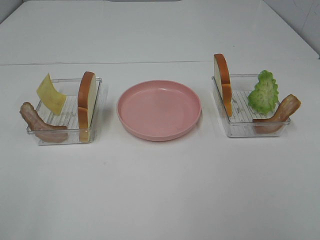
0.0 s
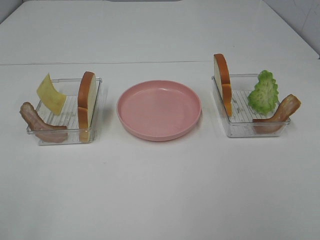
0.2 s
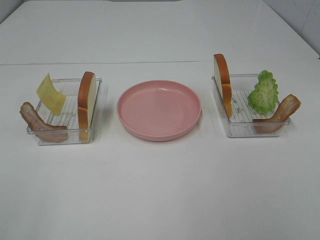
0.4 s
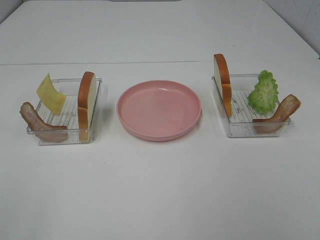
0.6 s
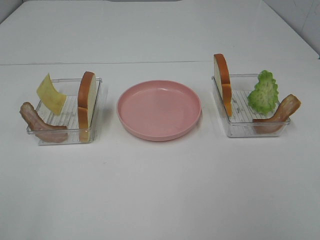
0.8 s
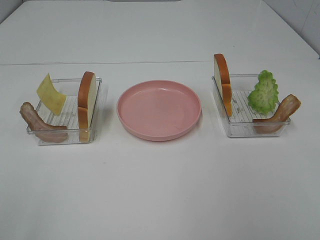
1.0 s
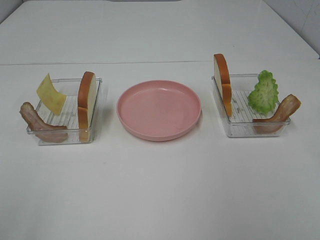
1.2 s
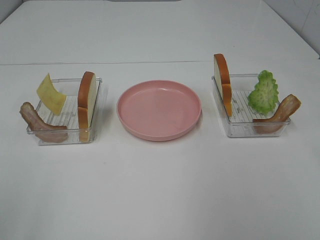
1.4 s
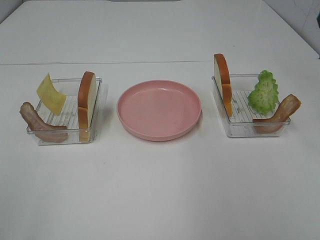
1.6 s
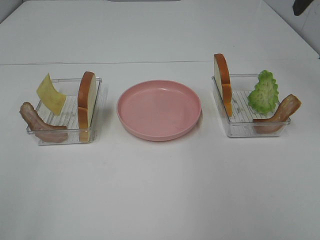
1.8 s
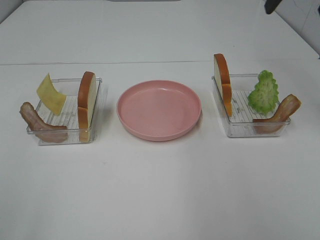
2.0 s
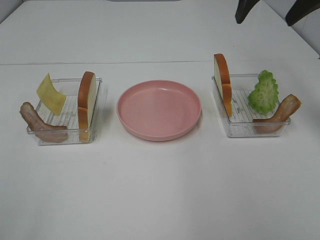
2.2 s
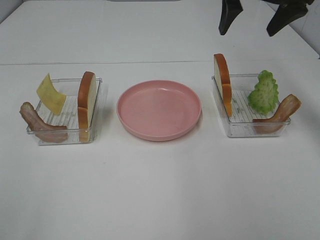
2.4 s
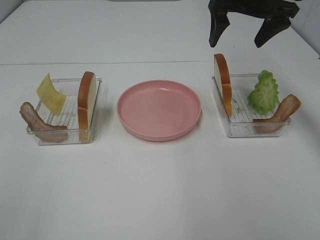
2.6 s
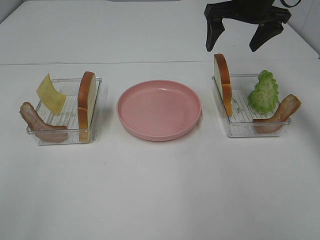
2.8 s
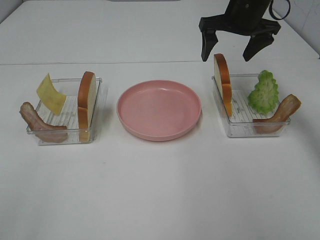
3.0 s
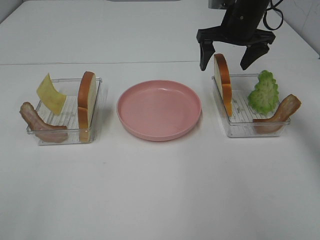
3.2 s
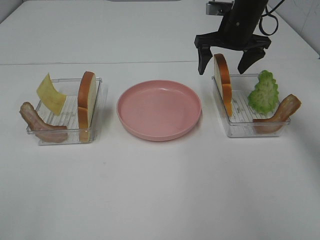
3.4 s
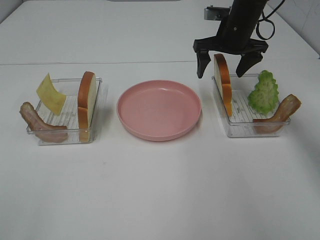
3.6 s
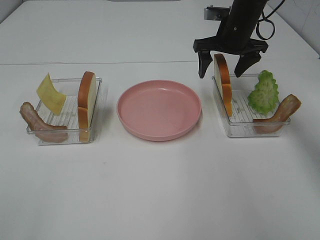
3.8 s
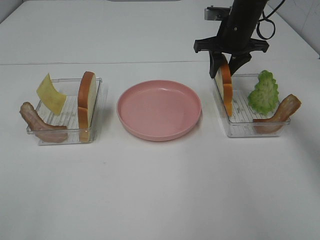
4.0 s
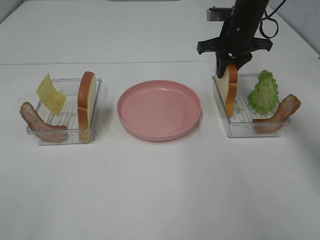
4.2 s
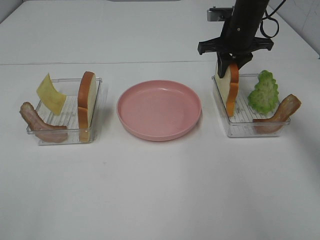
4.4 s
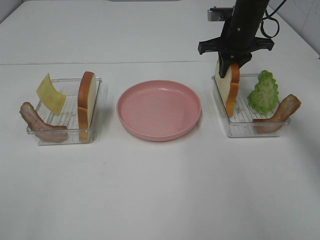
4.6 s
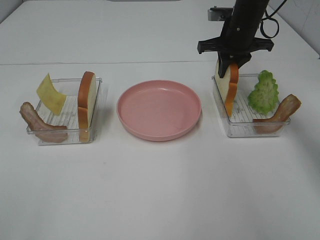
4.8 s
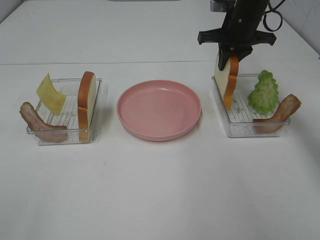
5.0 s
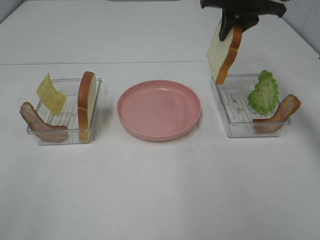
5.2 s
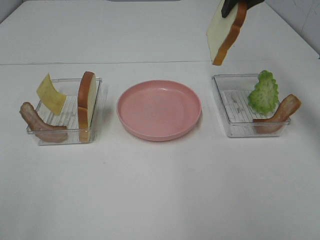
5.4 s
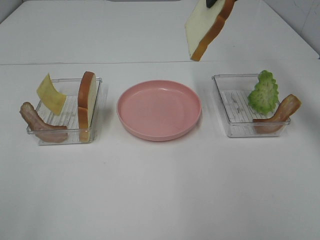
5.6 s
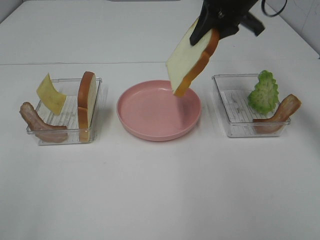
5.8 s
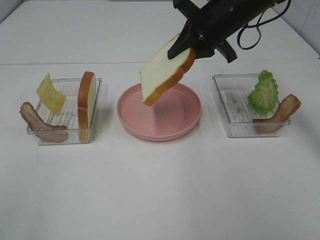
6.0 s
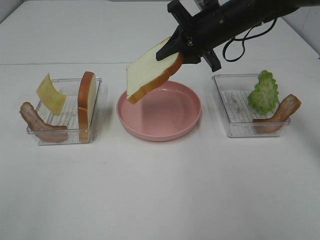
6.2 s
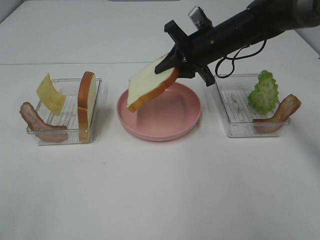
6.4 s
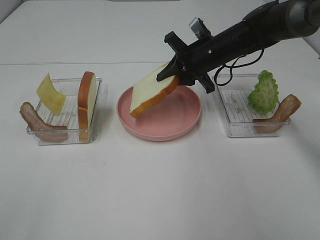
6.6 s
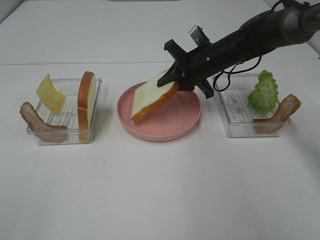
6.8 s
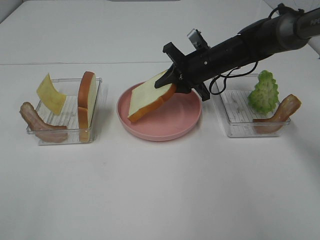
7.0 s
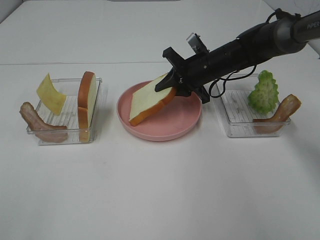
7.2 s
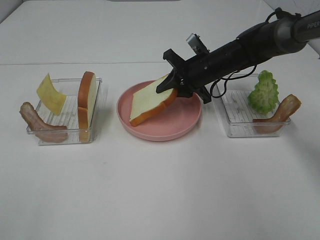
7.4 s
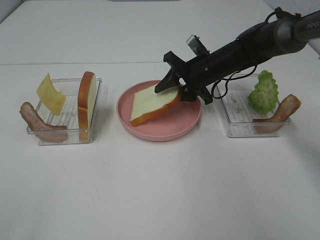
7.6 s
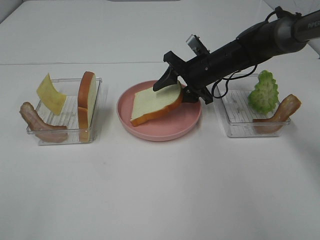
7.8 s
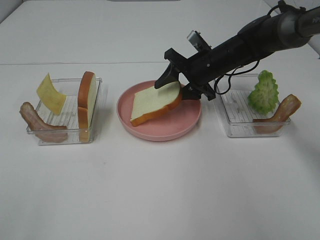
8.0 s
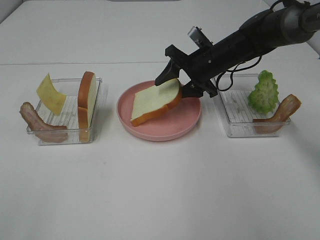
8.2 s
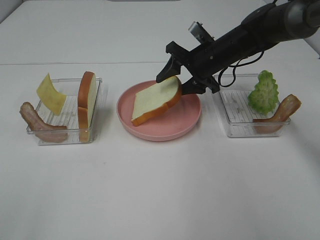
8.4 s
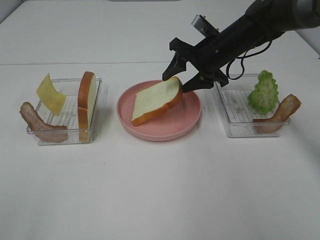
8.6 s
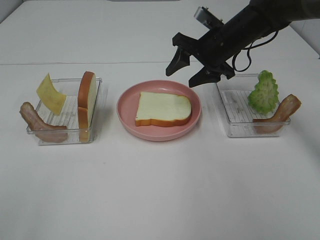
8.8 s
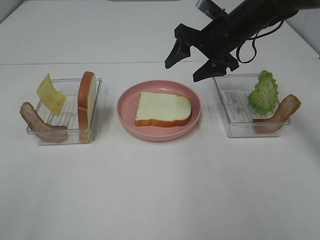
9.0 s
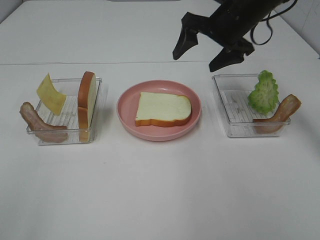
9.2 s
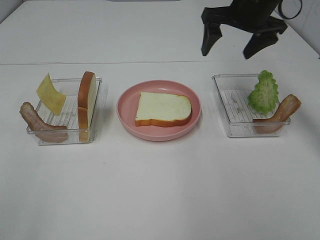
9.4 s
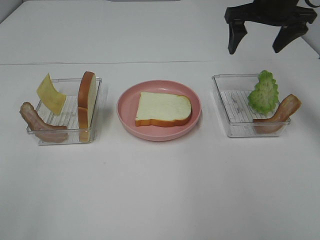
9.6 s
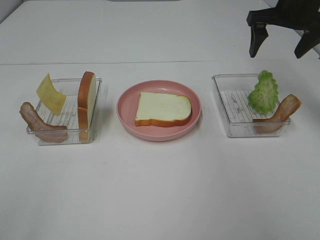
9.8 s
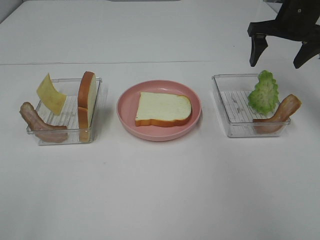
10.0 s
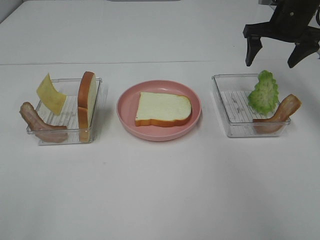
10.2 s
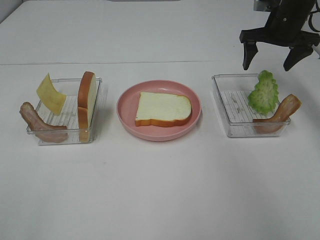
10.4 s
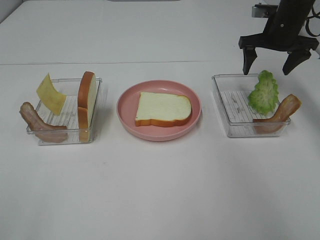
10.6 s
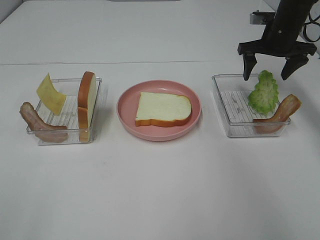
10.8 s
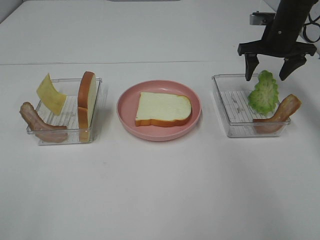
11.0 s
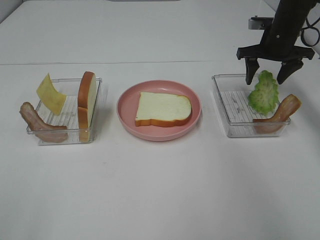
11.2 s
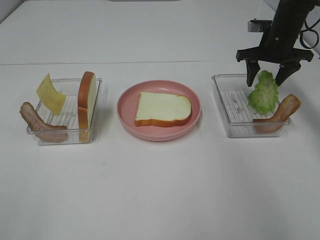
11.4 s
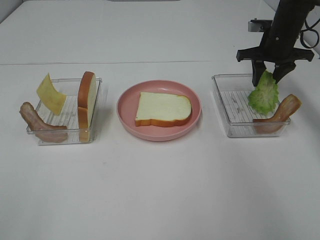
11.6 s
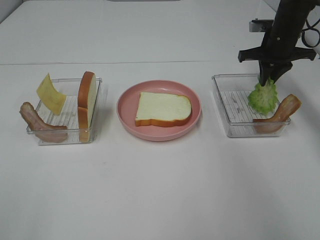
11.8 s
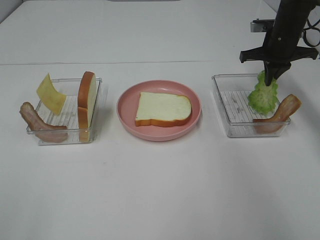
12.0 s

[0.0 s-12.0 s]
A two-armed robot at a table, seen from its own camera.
Task of the whole recording: Make sandwiches.
Step, 0.0 to 4.8 s: Right hand:grab the bread slice.
Step, 5.0 to 8.8 s: Right hand:place the bread slice on the plate.
1.6 to 3.0 s: The right gripper heads forward, downward and to the left, covering about 25 cm.
3.0 to 4.4 s: The right gripper changes place by roughly 5 cm, and closes up.
4.4 to 6.0 s: The right gripper moves backward, some 5 cm, and moves some 15 cm upward and comes back.
6.0 to 7.6 s: The right gripper is displaced downward by some 15 cm.
7.6 to 9.0 s: The right gripper shifts approximately 10 cm upward.
9.0 to 10.4 s: The right gripper moves to the right and forward, roughly 15 cm.
10.4 to 12.0 s: The right gripper closes.

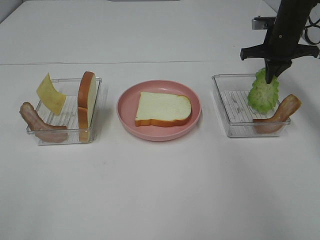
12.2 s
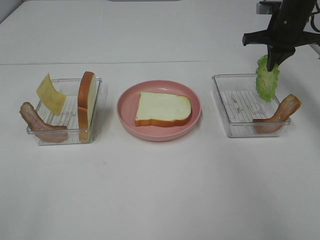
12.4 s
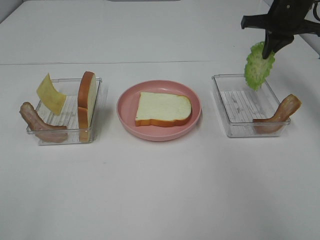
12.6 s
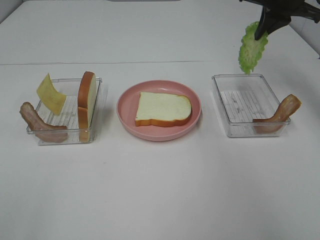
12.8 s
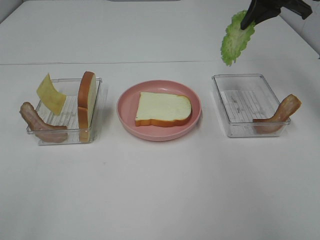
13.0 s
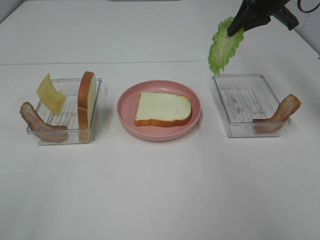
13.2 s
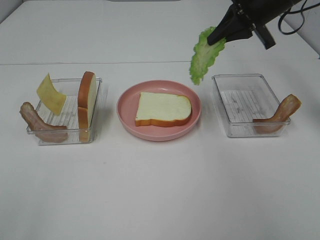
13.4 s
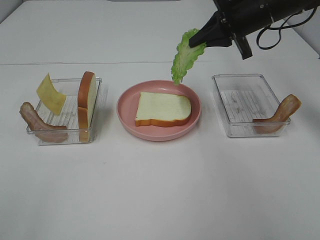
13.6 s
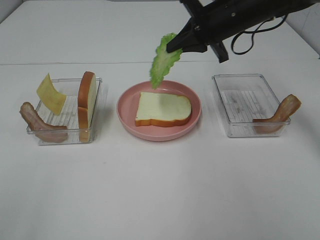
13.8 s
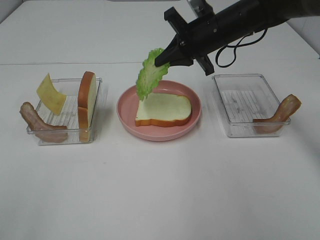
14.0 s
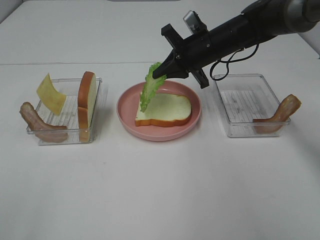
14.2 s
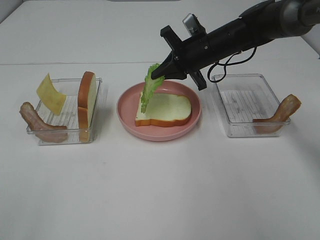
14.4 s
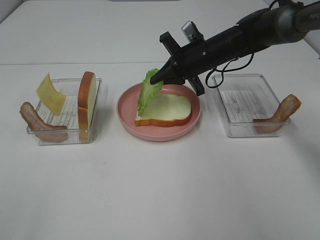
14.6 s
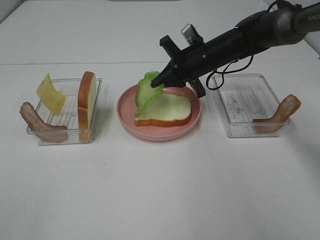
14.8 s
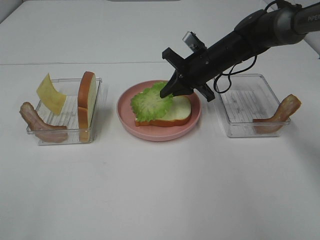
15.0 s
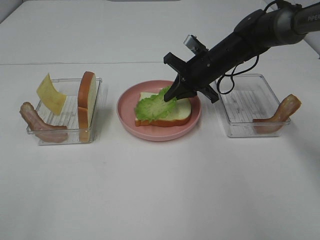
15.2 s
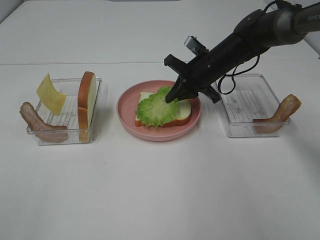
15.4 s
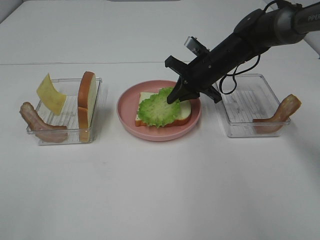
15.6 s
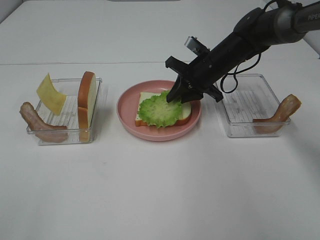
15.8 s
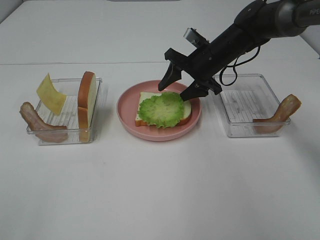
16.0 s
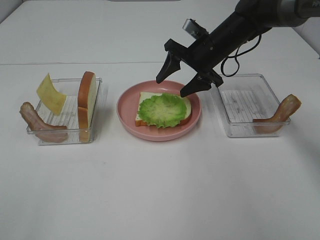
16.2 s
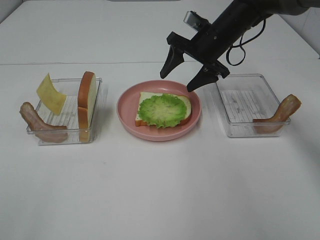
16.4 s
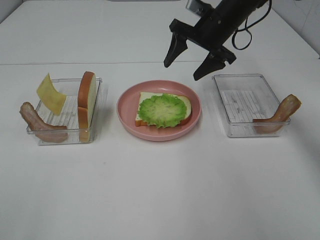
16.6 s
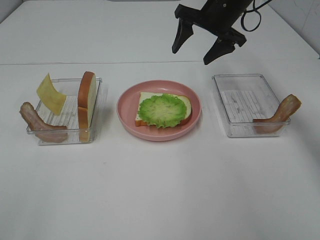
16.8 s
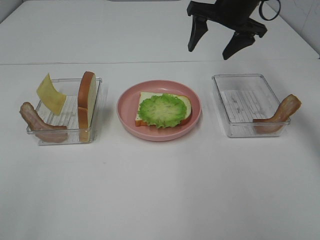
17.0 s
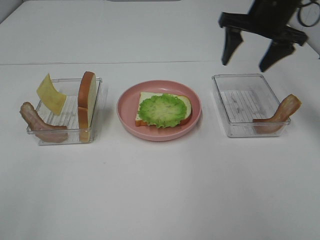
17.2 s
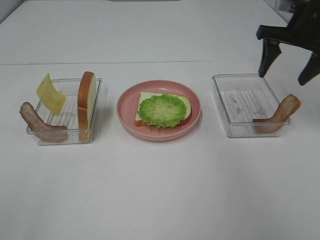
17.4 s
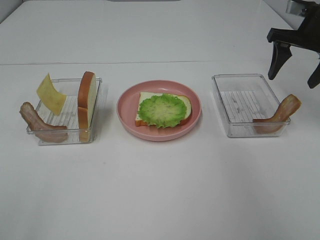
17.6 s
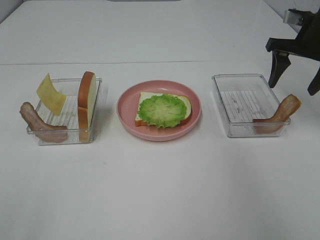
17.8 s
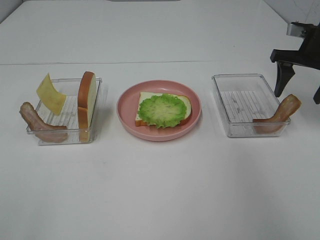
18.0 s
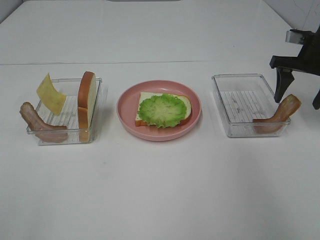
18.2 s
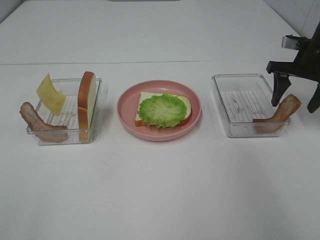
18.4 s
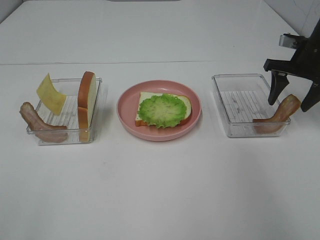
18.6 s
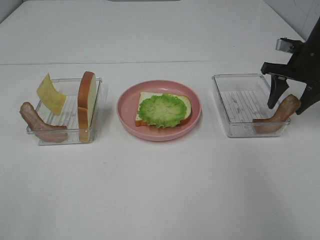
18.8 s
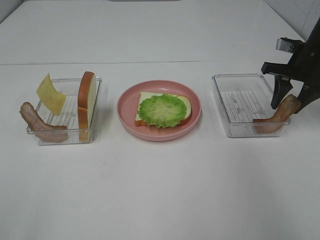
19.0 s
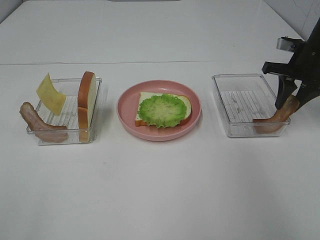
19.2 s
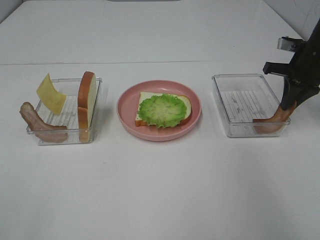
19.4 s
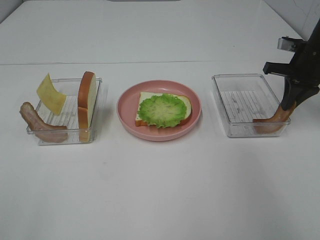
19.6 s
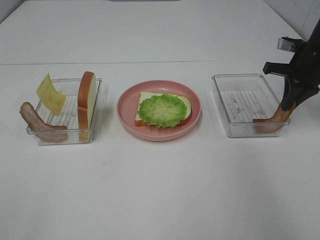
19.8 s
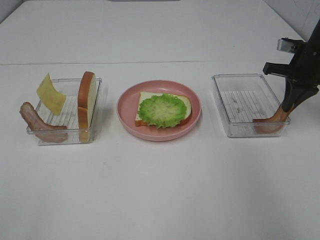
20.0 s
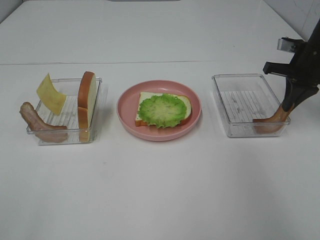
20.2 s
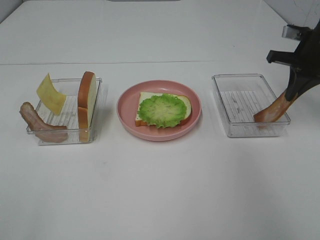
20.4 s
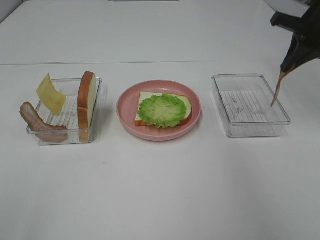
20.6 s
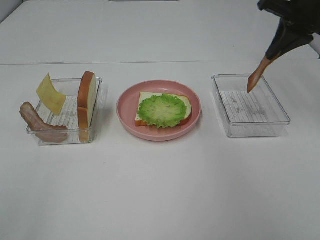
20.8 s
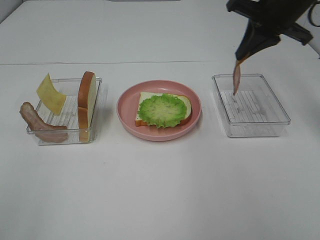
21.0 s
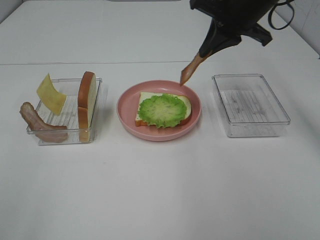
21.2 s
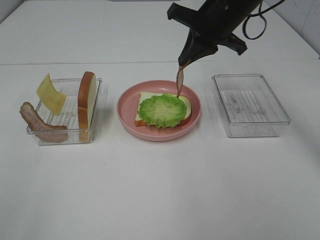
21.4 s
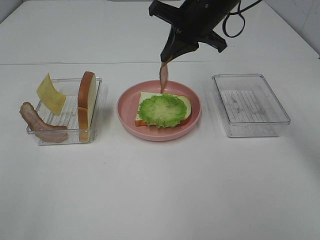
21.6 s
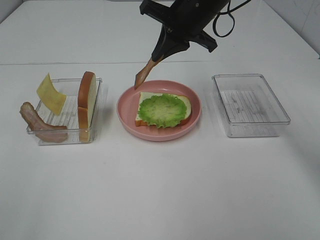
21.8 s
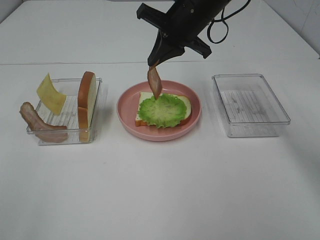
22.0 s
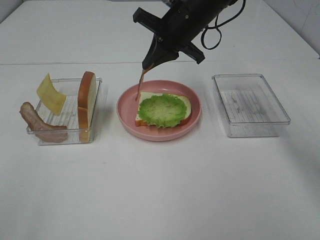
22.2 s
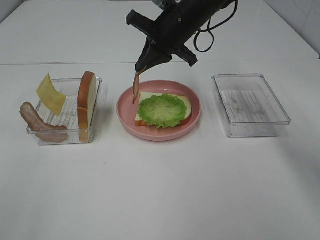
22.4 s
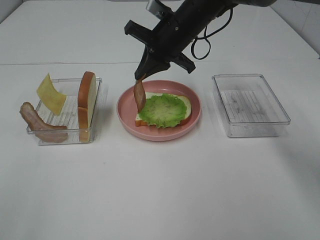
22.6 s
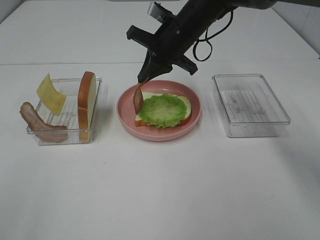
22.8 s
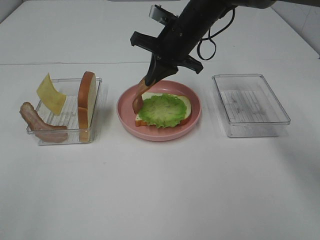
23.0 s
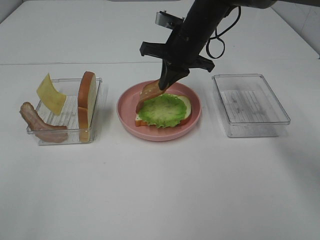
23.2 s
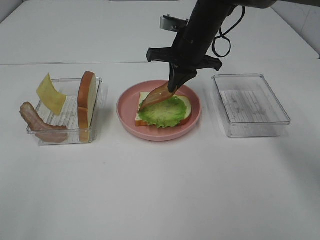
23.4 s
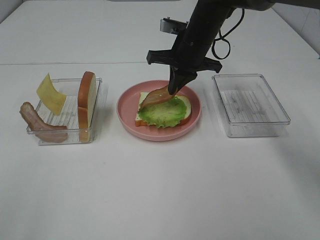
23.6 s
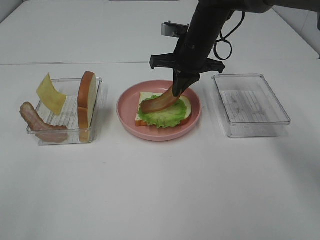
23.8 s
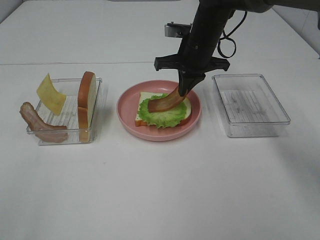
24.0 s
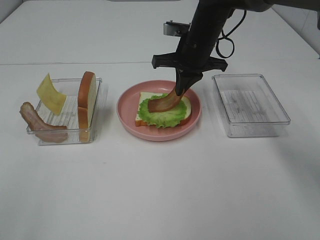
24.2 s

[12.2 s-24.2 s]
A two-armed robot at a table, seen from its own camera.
Task of the whole recording: Make sandwiches.
Step, 12.4 to 16.2 s: Right hand:place the lettuce slice on the bread slice.
Step, 16.4 to 20.0 s: Right hand:grab the bacon.
12.2 to 13.8 s: The right gripper moves to the left and backward, about 15 cm.
13.8 to 15.2 s: The right gripper moves downward, some 10 cm.
15.2 to 16.6 s: The right gripper moves upward, approximately 10 cm, and opens its fingers.
16.6 to 18.2 s: The right gripper moves to the right, about 20 cm.
18.2 to 19.8 s: The right gripper closes up.
19.8 to 21.2 s: The right gripper heads to the left and upward, covering roughly 20 cm.
21.2 to 22.6 s: The right gripper shifts about 10 cm to the left and downward.
